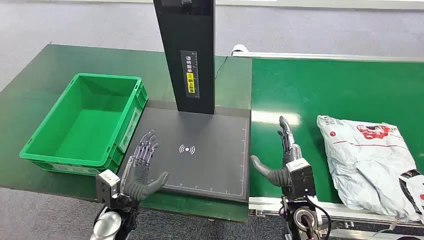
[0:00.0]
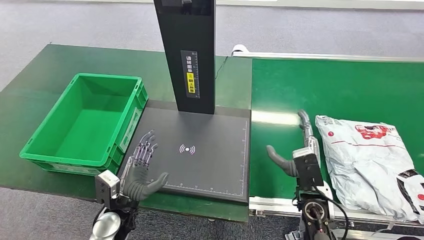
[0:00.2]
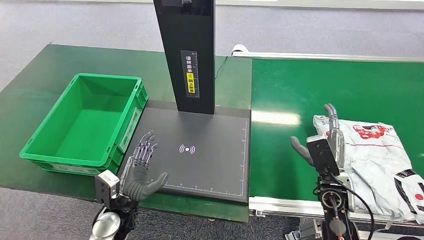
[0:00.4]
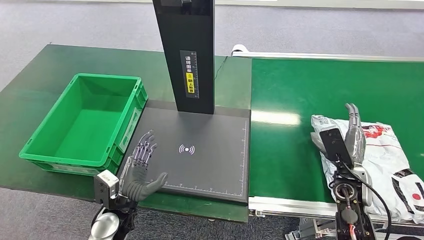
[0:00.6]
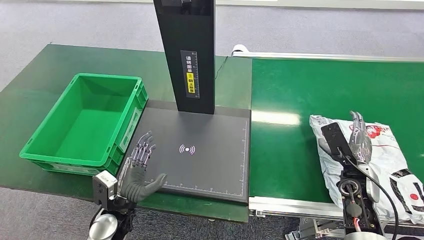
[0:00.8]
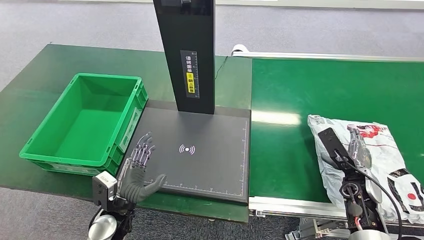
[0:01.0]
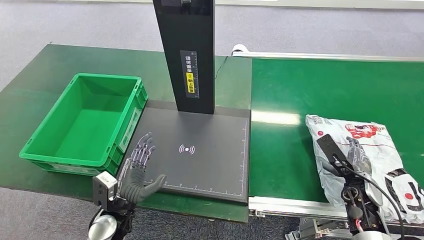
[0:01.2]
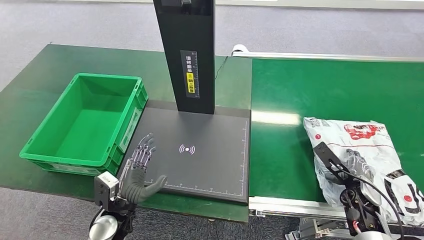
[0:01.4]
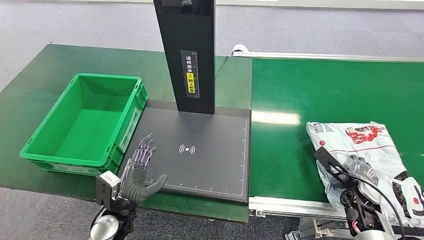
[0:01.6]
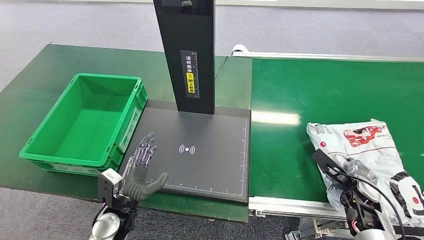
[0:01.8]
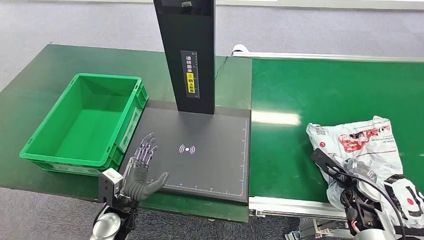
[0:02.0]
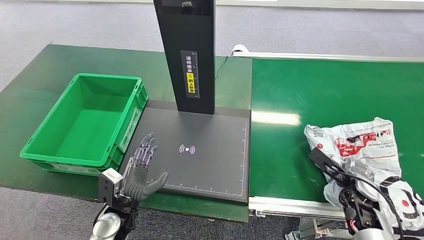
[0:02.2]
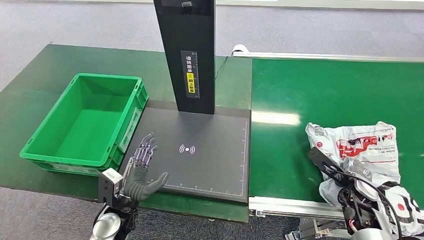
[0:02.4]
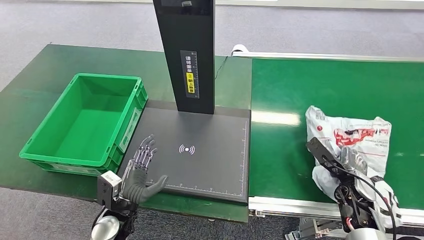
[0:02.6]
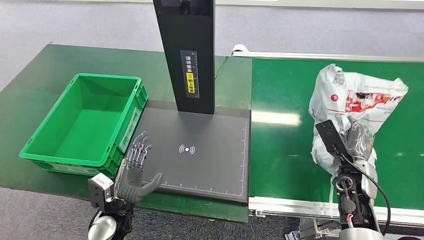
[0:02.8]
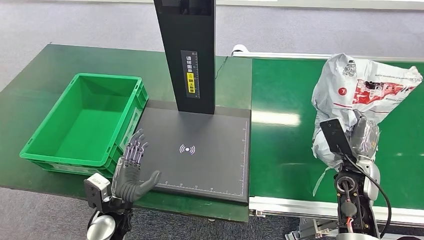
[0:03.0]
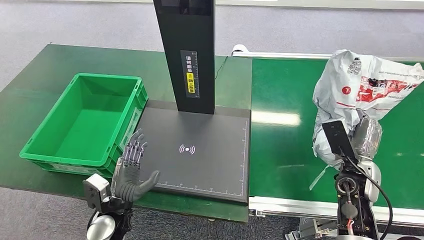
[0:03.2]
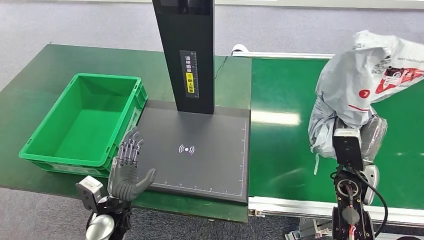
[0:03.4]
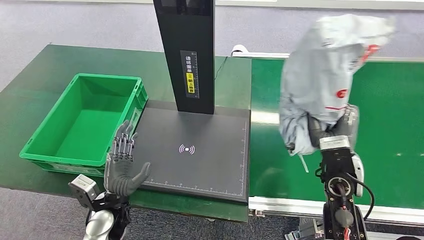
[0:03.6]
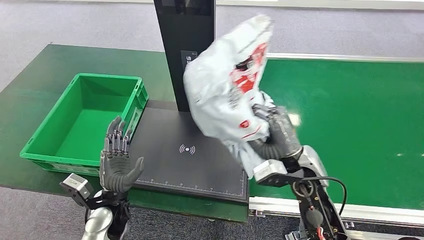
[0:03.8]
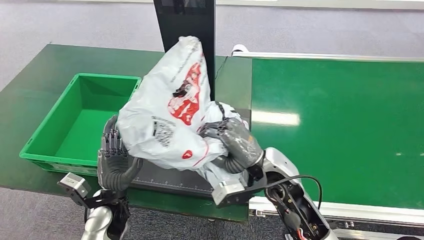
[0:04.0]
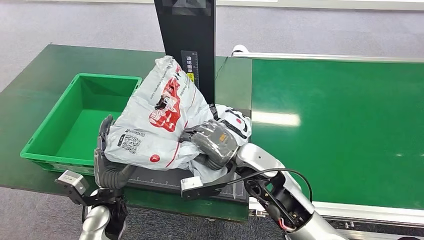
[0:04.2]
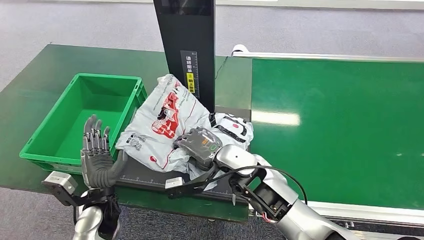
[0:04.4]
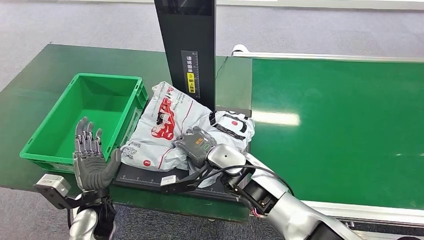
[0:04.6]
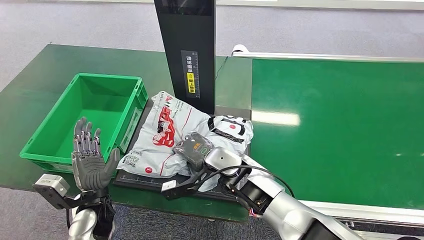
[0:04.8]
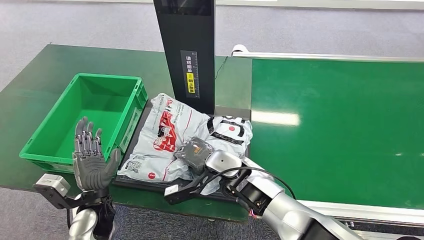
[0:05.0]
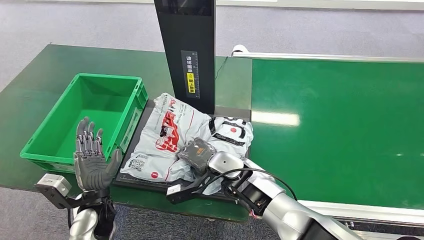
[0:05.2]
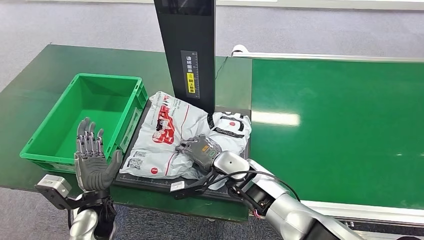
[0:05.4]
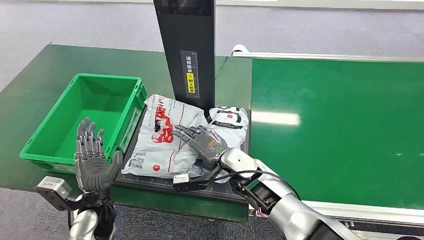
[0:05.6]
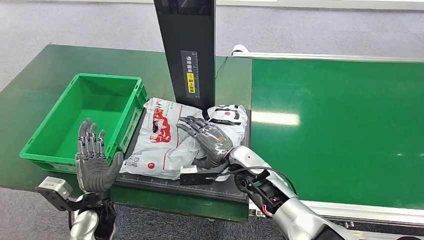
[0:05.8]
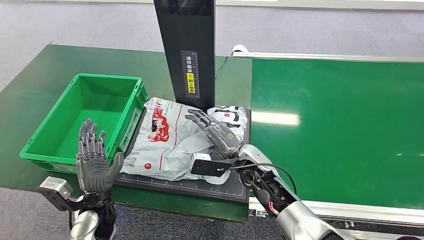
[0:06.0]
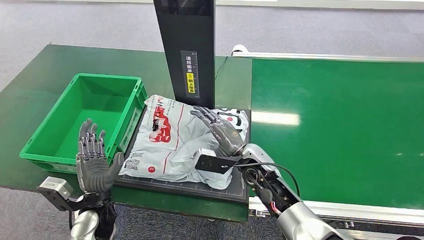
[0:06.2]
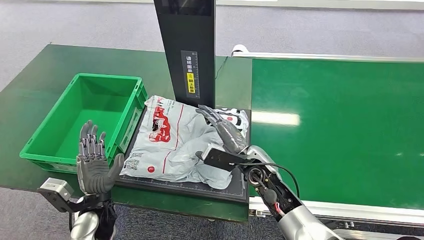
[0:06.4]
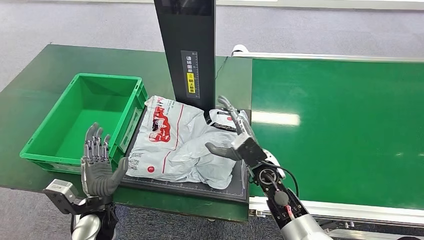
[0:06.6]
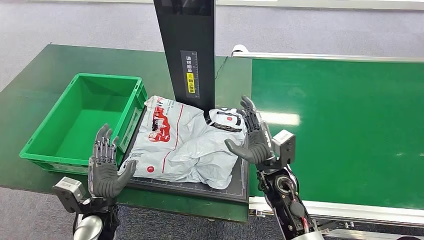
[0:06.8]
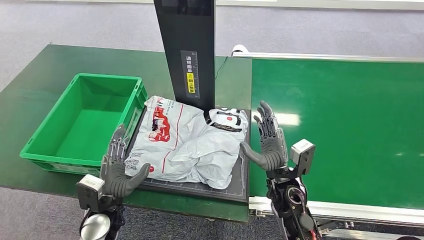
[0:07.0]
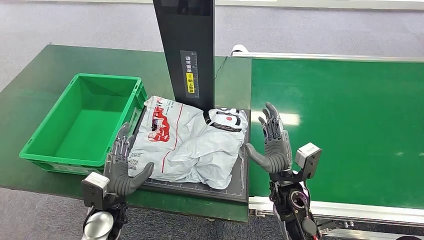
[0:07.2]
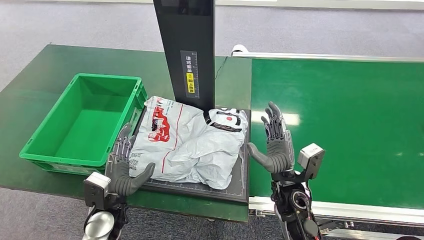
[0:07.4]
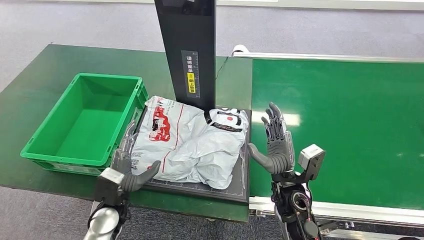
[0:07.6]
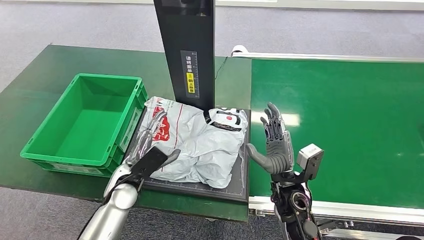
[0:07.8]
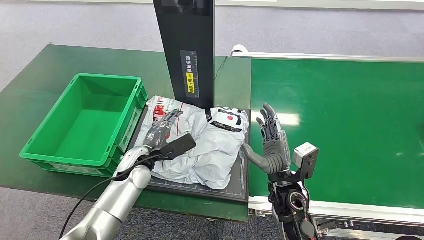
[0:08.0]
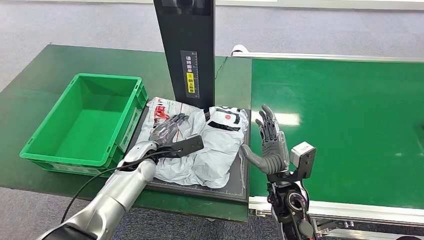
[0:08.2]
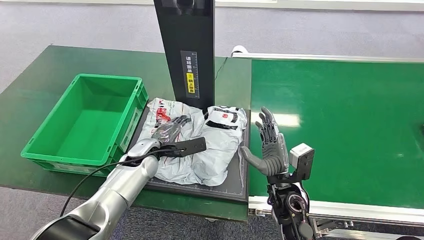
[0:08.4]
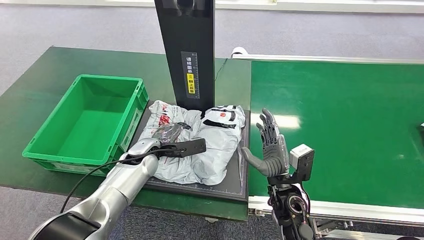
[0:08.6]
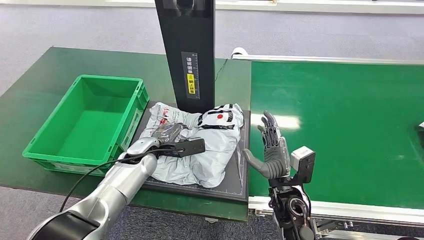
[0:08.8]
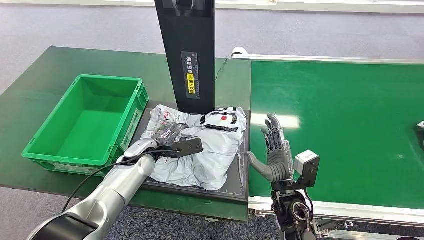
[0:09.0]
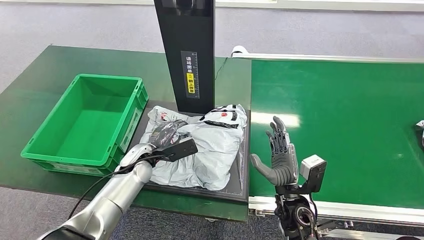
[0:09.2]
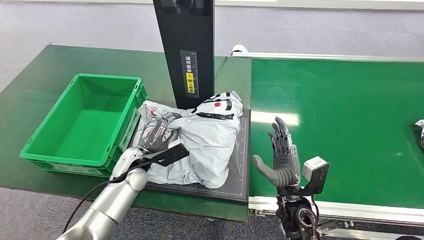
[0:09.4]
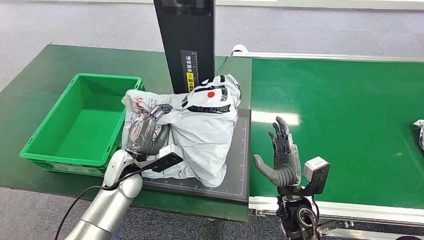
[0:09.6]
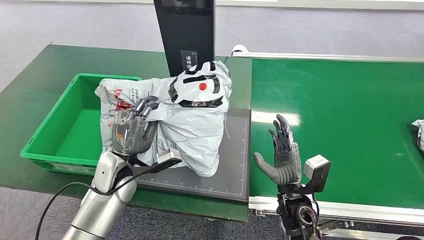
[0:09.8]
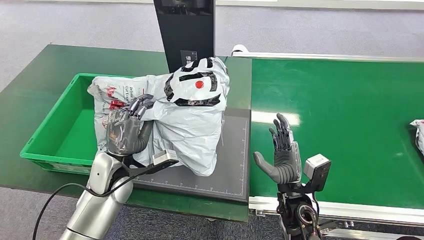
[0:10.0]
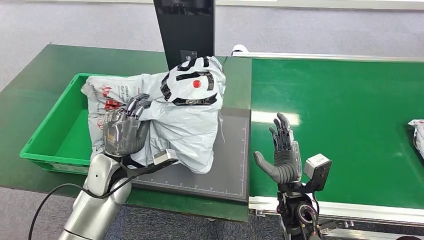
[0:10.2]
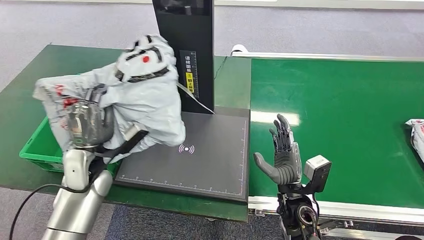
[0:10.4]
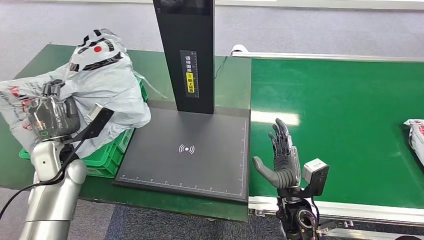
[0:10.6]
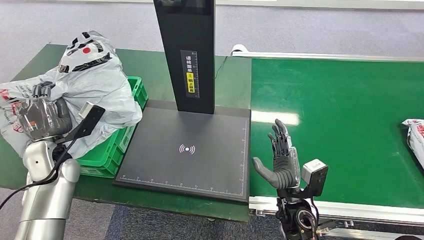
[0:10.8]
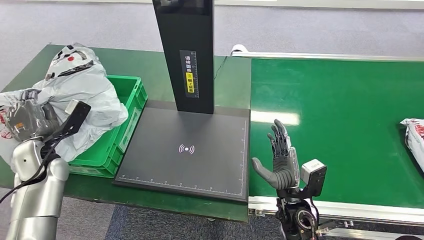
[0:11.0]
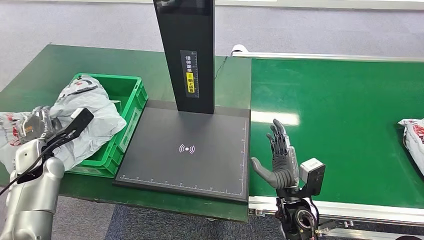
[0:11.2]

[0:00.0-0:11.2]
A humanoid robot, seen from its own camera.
Step, 0:00.0 to 0:03.2: Pick up the package from the conveyor belt.
Step, 0:03.4 to 0:06.4: Place the package onto the inbound machine.
Step, 0:06.8 to 0:09.8: Pick up the package from the inbound machine.
0:01.6 to 0:03.2: The right hand travels upward and to the left by roughly 10 cm.
0:04.8 to 0:06.4: The right hand goes some 5 cm to the right.
0:06.4 to 0:08.0: The right hand moves backward, about 5 cm; the left hand shifts approximately 15 cm forward and to the right.

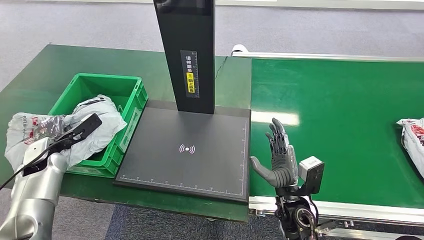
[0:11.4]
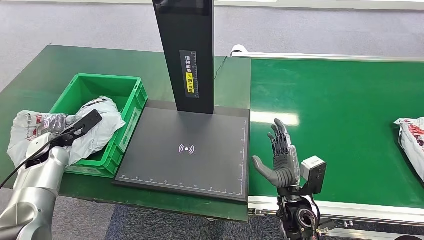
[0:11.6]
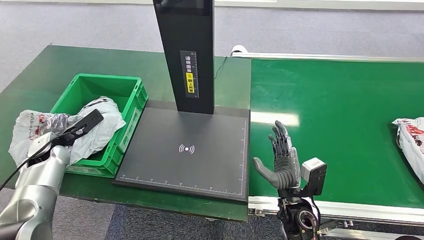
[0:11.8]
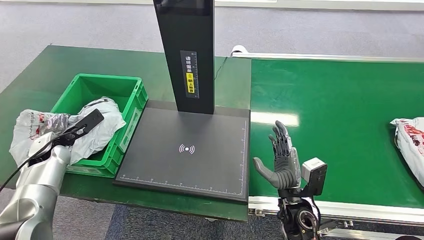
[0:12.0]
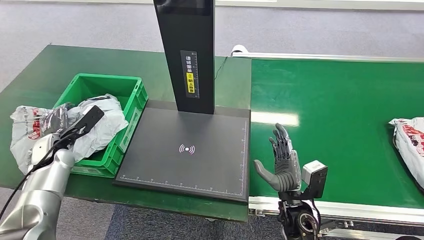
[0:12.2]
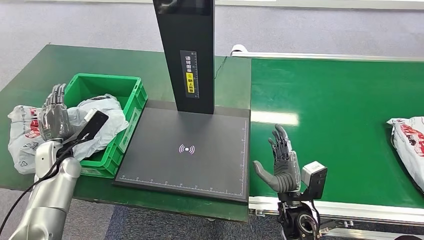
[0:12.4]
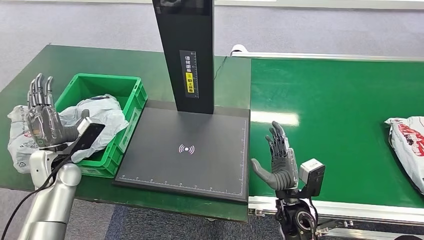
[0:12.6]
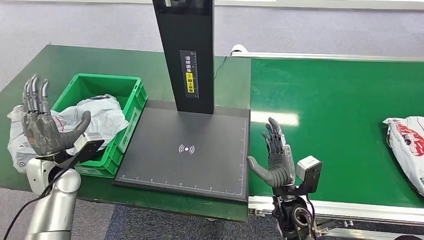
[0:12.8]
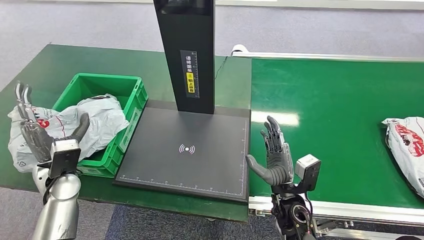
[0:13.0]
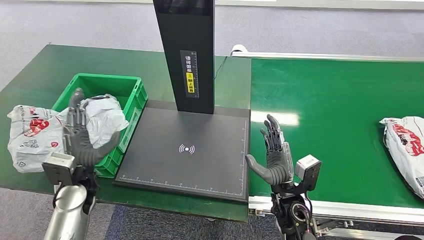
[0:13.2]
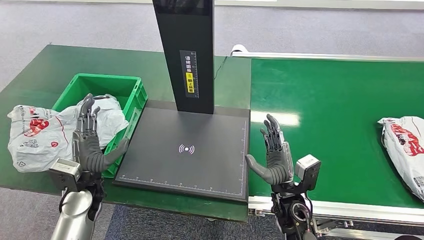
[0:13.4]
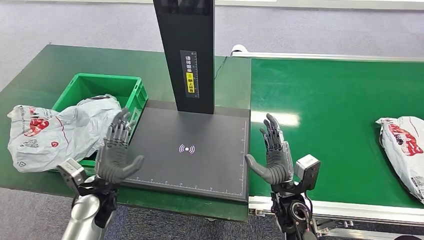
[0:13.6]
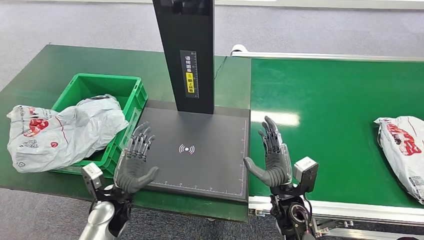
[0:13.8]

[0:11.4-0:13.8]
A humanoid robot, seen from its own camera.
Step, 0:11.4 to 0:13.8: Place the package into the parcel locker.
0:11.4 to 0:12.6: The left hand moves to the right, about 5 cm.
0:12.6 to 0:13.8: The left hand goes roughly 20 cm to the right, downward and backward.
